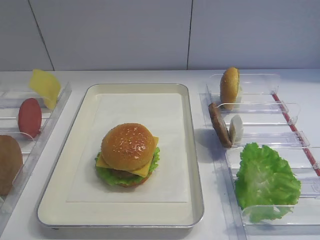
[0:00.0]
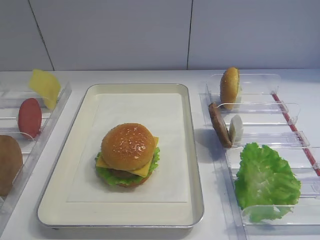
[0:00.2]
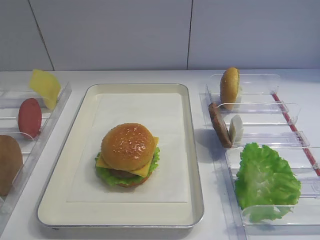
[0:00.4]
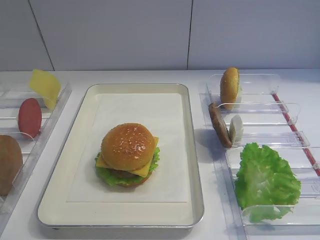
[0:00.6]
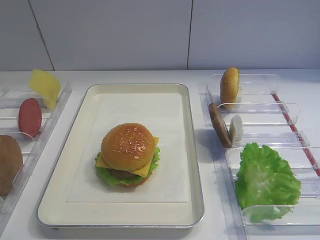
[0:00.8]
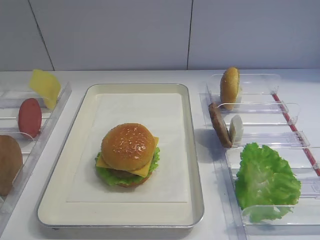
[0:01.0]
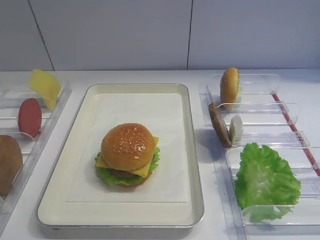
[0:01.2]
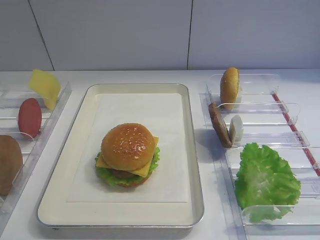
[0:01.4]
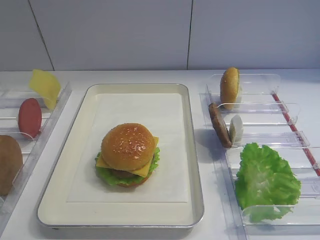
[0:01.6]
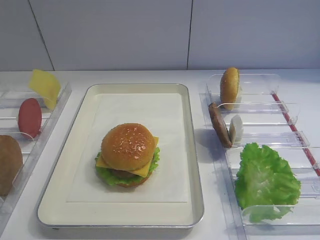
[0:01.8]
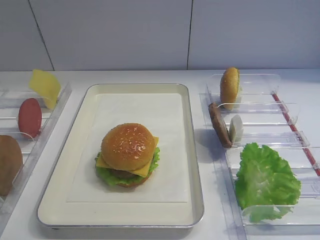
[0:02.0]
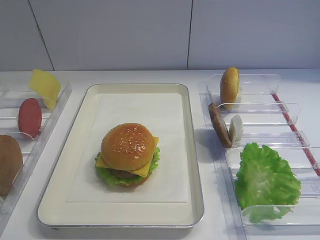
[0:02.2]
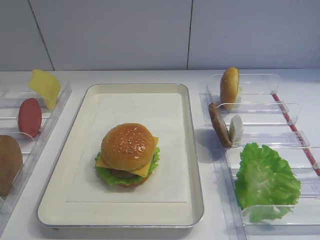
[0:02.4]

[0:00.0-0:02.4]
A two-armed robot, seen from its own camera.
0:01.2 to 0:02.4: Neither gripper changes place.

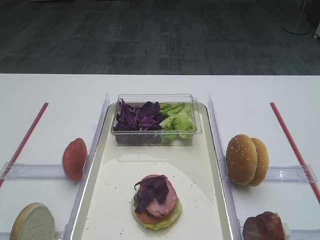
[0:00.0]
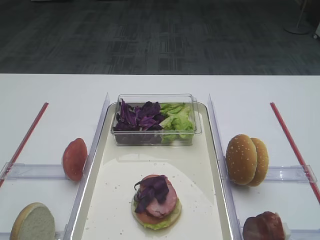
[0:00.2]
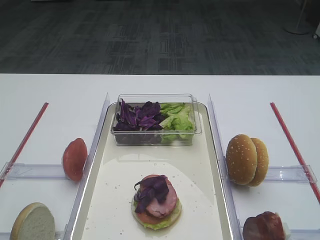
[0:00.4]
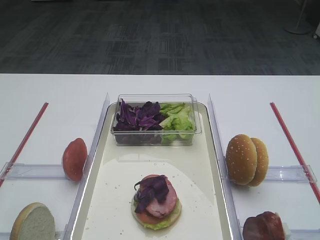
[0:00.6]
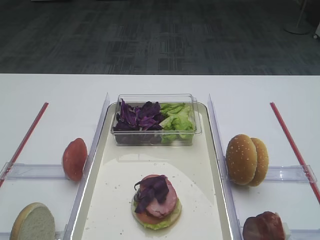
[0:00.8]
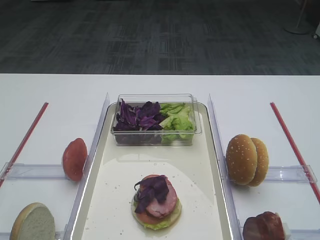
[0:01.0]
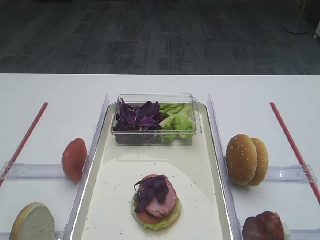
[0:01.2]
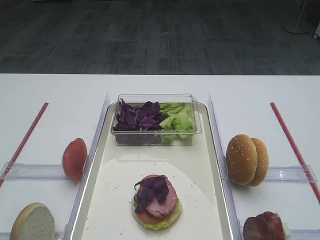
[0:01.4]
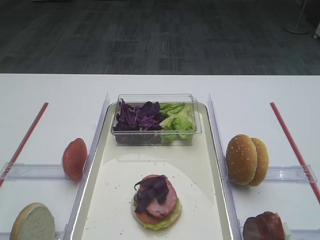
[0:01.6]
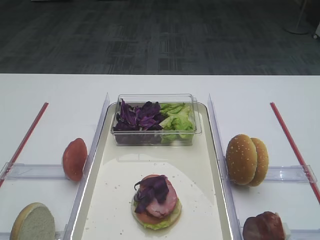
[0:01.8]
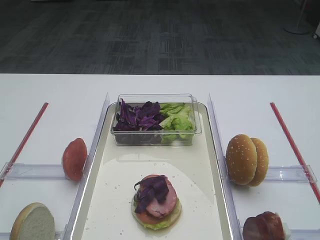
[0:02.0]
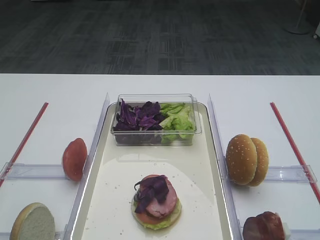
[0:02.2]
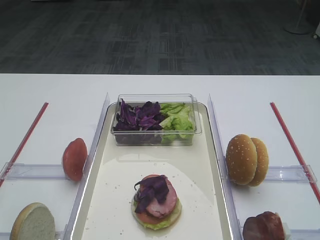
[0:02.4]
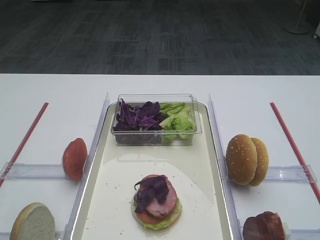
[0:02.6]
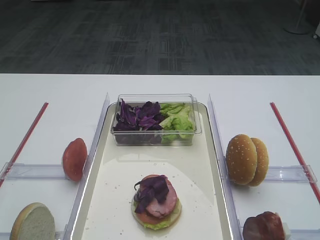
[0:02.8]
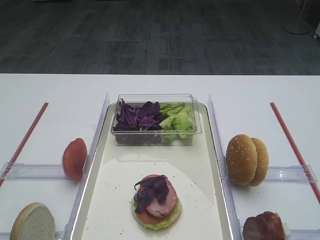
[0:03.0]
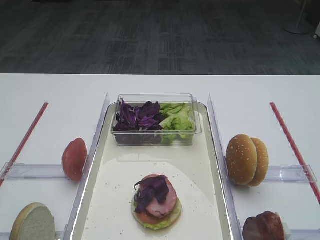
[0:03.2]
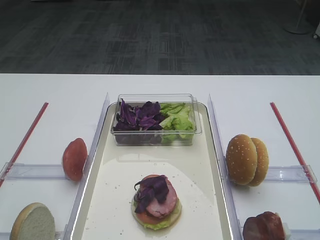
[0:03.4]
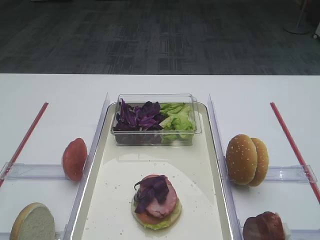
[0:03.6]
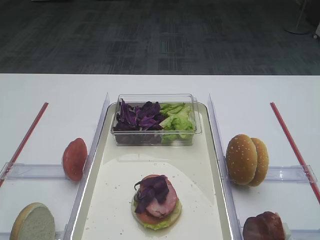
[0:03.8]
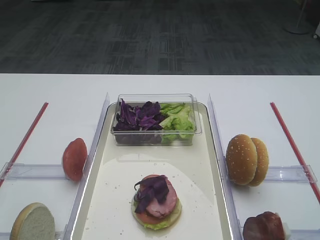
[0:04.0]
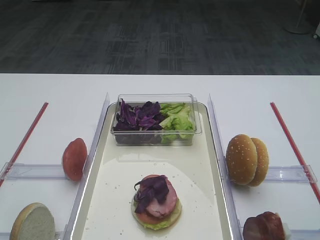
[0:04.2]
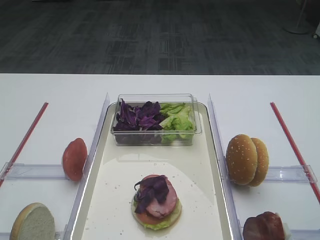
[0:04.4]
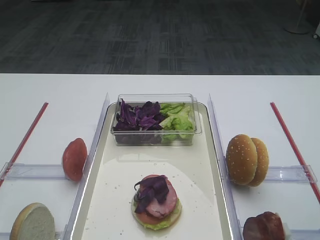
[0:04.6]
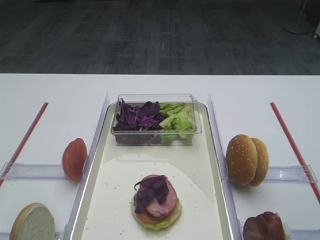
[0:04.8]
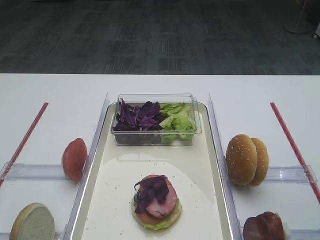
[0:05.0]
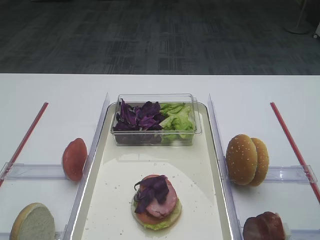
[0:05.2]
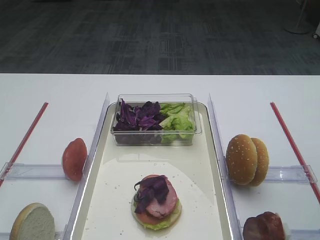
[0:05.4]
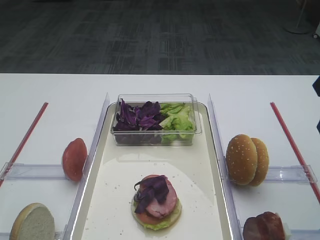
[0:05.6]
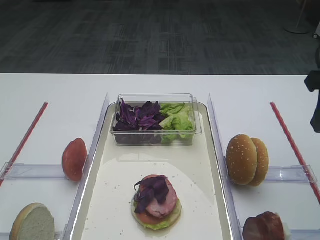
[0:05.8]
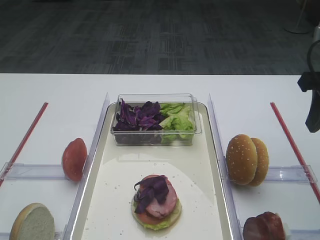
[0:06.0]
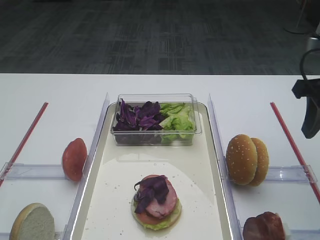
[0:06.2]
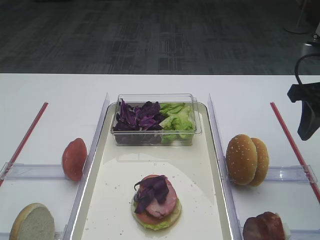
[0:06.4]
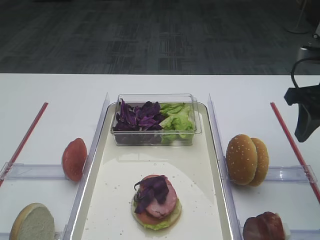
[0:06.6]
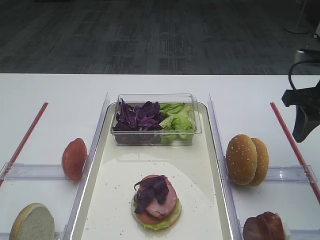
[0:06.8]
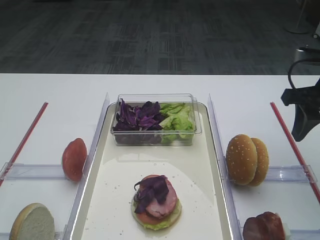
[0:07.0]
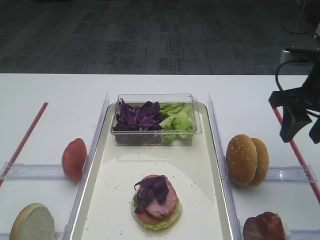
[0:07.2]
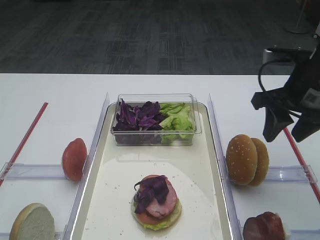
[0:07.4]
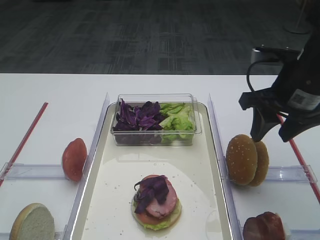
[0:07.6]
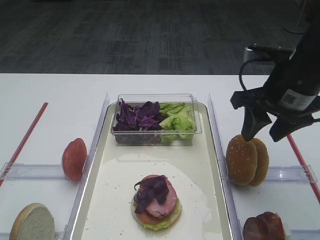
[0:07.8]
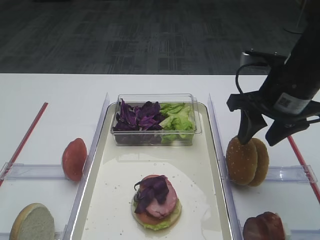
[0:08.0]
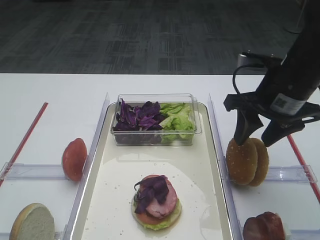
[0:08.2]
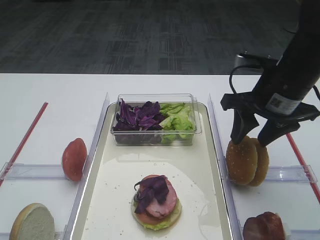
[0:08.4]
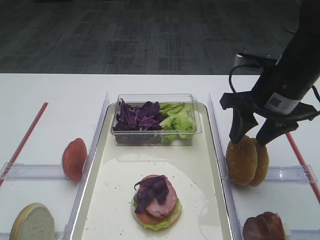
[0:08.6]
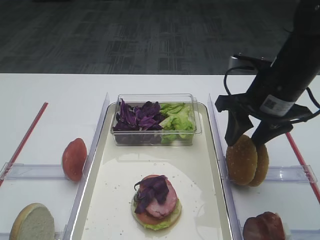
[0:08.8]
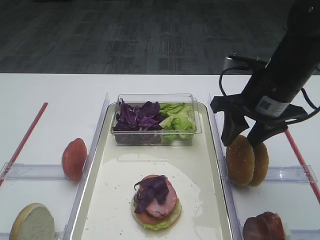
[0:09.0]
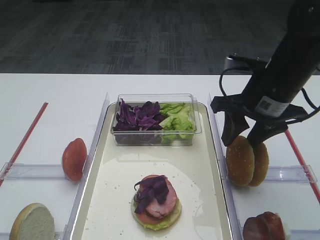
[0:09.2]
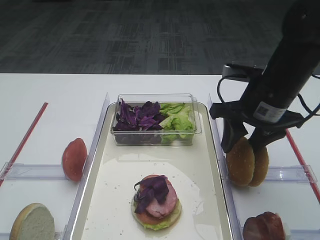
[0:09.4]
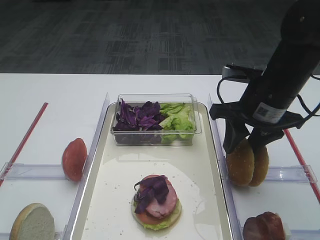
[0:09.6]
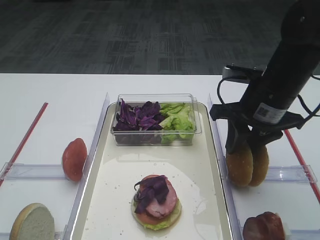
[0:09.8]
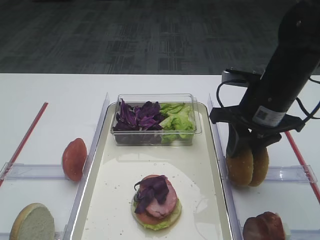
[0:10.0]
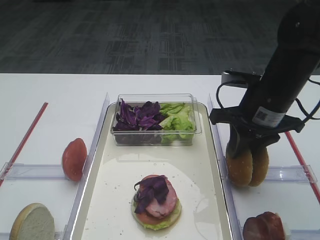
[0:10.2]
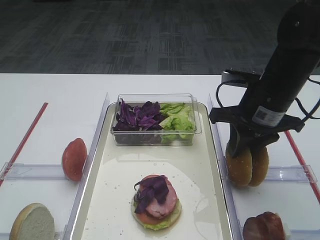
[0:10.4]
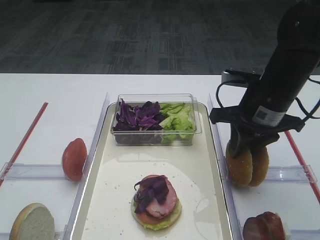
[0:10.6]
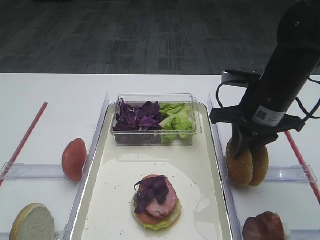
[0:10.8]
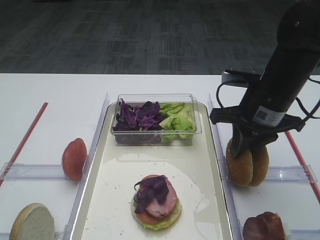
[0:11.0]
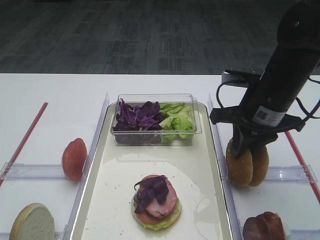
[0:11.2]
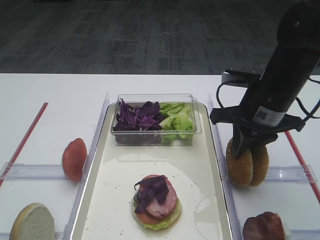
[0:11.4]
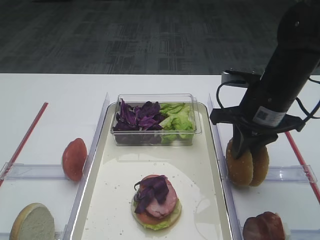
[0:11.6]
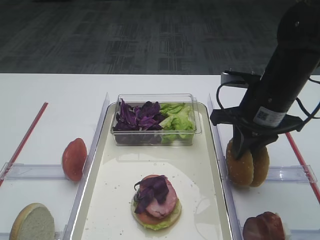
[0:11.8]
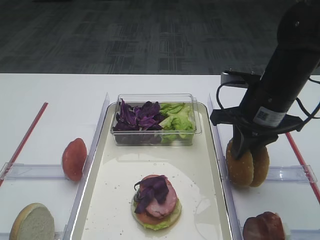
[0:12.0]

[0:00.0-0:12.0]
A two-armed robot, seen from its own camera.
0:04.4 to 0:06.0: The right gripper heads forward, covering about 15 cm.
0:06.0 to 0:07.6: The right gripper goes about 5 cm to the left.
0:07.6 to 0:09.0: There are only small adjustments of the grippers.
0:09.0 to 0:10.4: The right gripper closes its fingers.
0:10.4 to 0:12.0: Both grippers stay put.

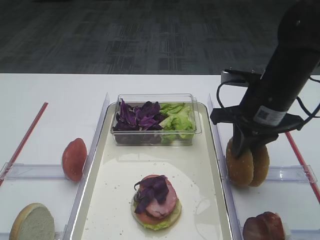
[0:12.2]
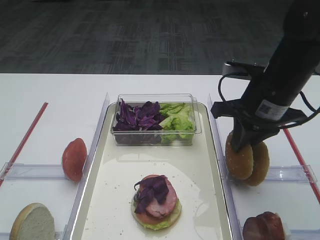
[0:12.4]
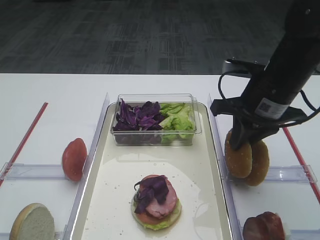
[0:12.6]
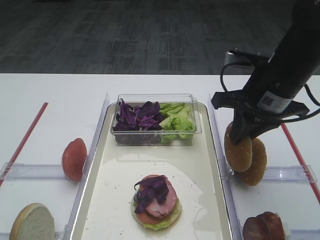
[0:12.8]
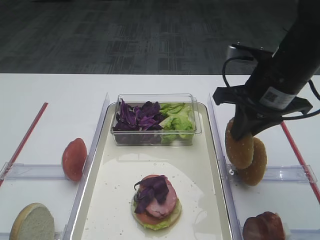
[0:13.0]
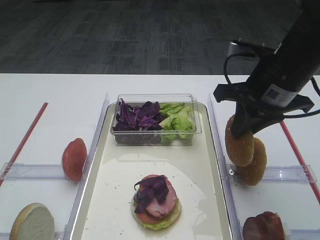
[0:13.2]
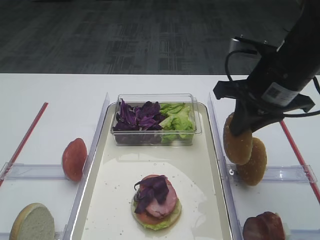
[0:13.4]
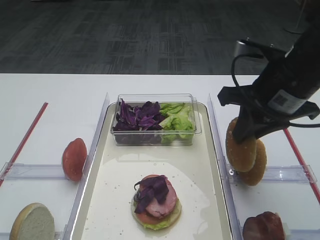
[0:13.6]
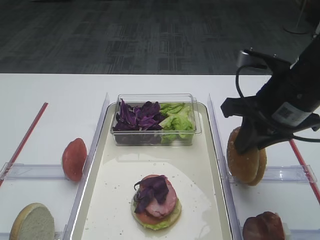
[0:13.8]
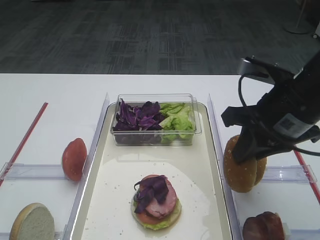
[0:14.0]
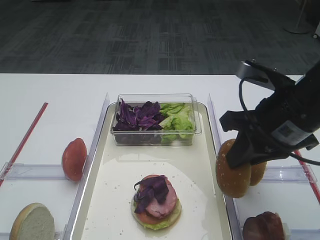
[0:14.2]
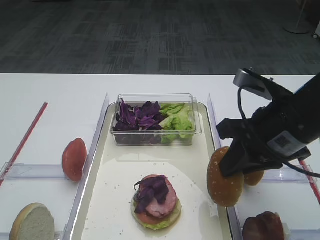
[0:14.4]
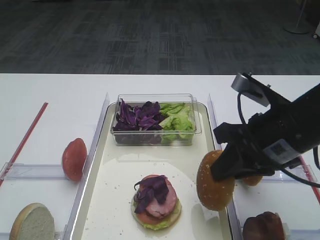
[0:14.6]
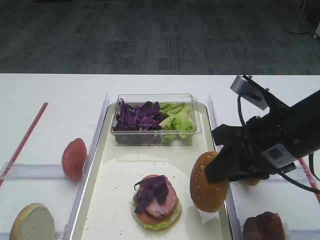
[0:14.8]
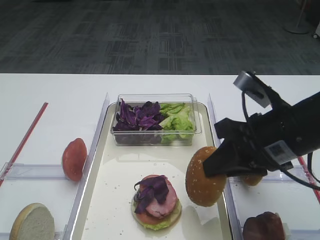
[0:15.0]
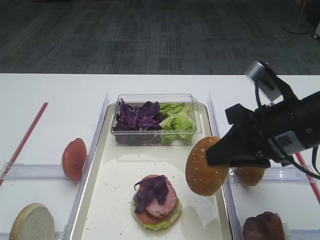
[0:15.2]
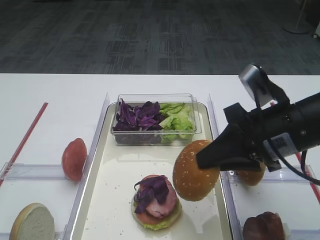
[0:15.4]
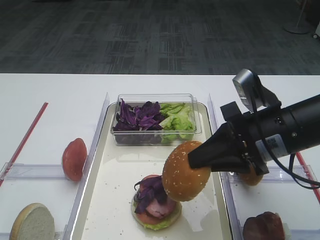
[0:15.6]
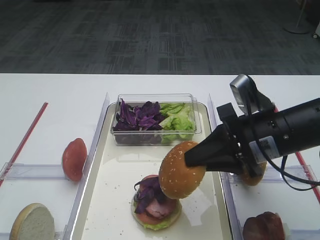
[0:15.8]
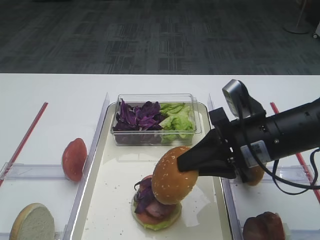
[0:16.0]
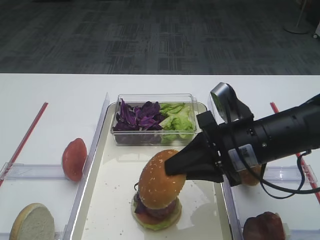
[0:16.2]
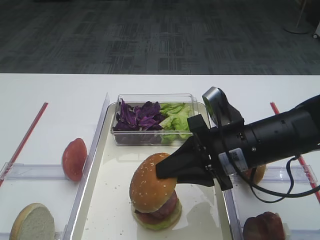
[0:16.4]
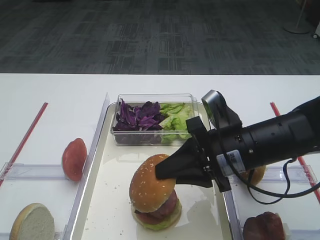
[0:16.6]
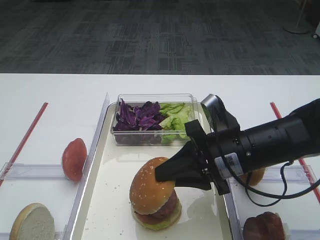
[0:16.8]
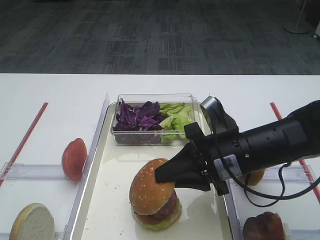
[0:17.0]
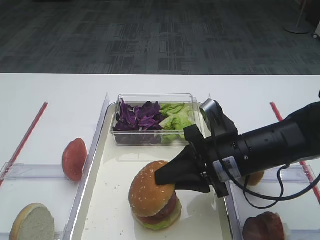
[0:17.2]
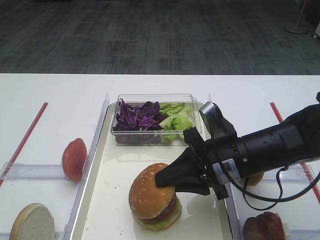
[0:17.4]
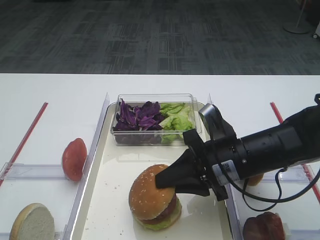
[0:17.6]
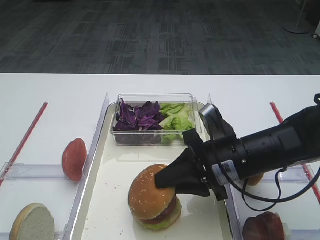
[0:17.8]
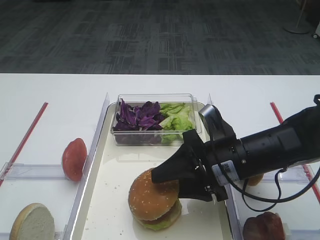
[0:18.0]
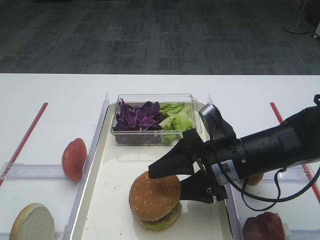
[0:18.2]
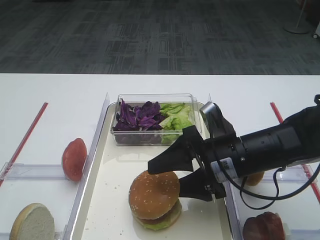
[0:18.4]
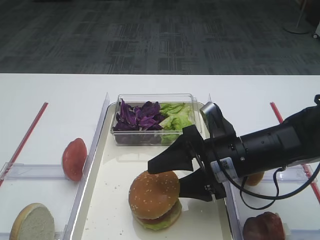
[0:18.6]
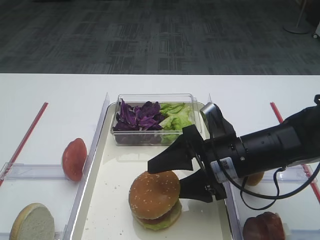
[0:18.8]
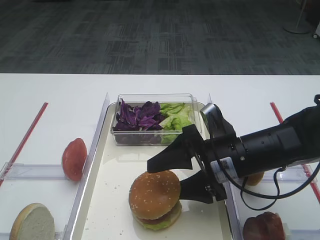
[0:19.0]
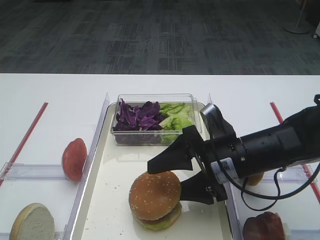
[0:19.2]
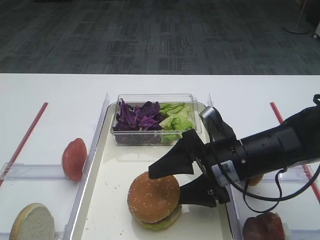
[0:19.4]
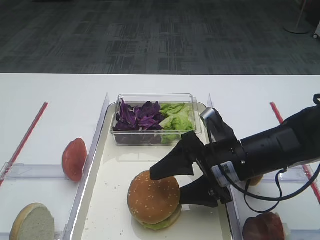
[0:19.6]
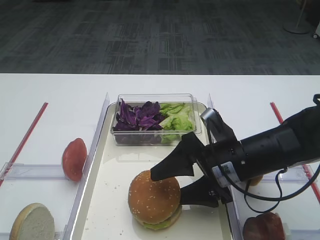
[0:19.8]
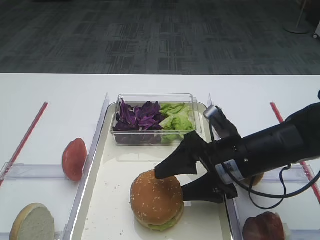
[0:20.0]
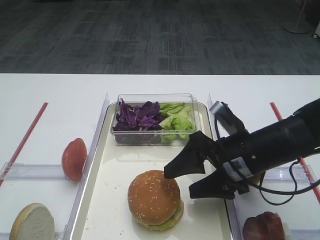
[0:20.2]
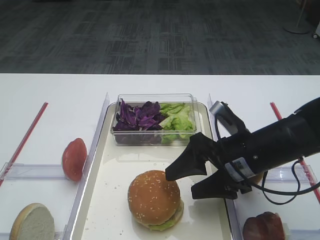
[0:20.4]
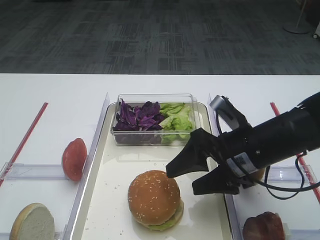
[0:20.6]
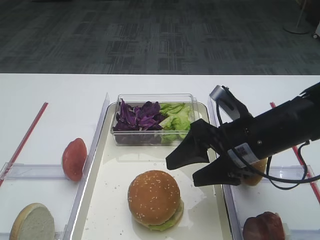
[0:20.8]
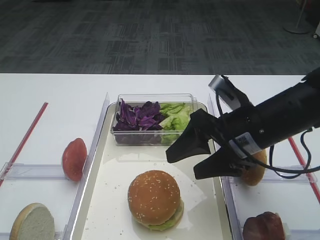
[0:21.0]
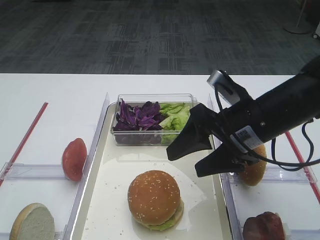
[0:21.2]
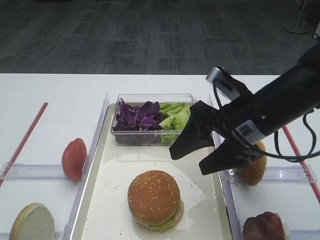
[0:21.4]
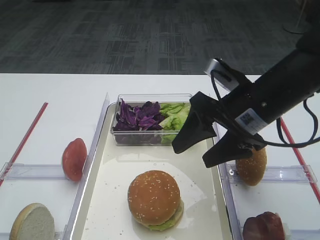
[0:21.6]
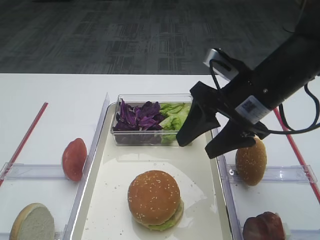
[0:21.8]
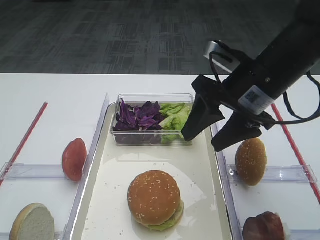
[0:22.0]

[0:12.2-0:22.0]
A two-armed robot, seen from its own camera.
Step, 0:13.2 to 0:21.0: Place the hamburger lid on the purple cabbage with the right gripper.
0:12.2 to 0:13.6: The right gripper shifts by about 5 cm.
0:13.6 to 0:15.0: The right gripper travels backward by roughly 5 cm.
0:15.0 to 0:16.4: The right gripper ends up some 5 cm from where it was.
0:16.4 to 0:17.8: The grippers stay close to where they were, moving slightly.
0:17.8 to 0:19.2: The right gripper opens.
0:19.2 to 0:20.6: The grippers stay close to where they were, moving slightly.
0:20.6 to 0:22.0: The right gripper travels upward by about 10 cm.
